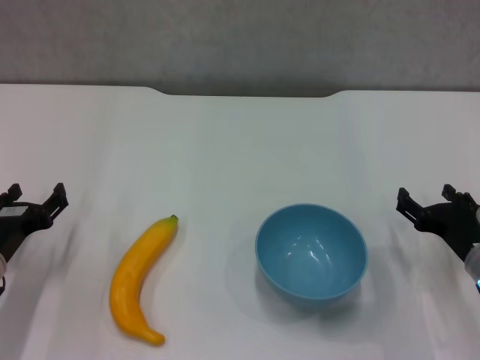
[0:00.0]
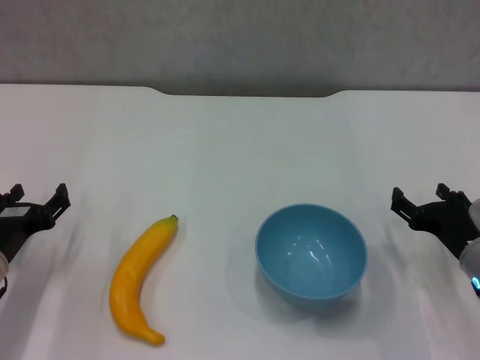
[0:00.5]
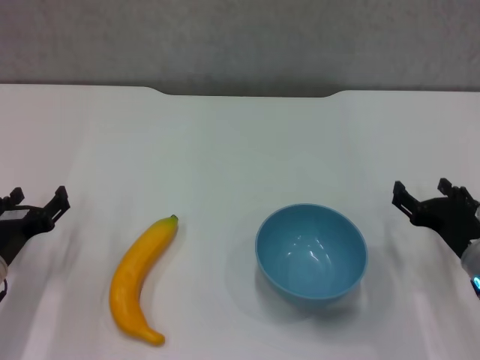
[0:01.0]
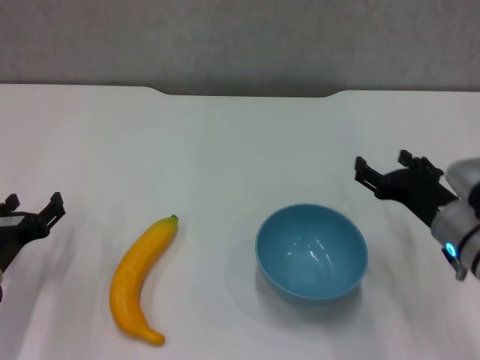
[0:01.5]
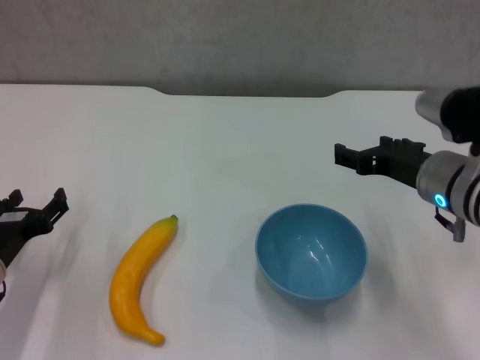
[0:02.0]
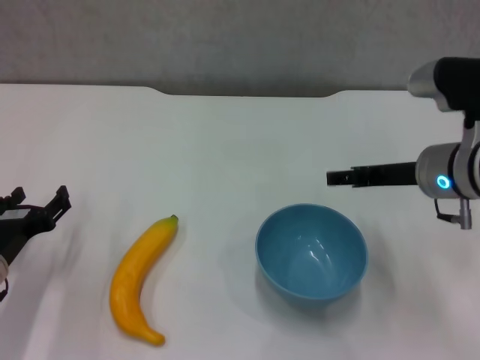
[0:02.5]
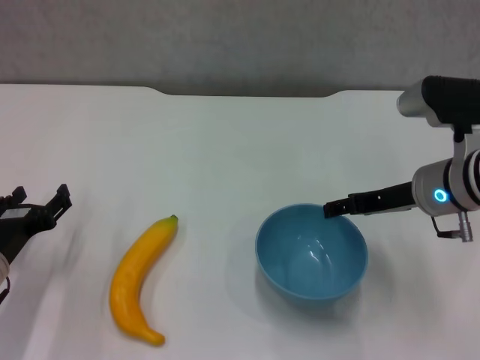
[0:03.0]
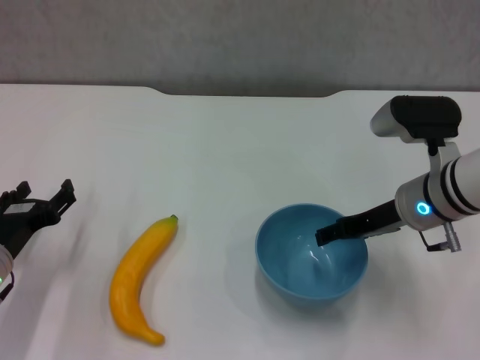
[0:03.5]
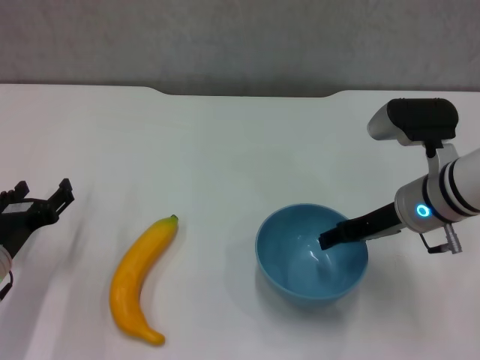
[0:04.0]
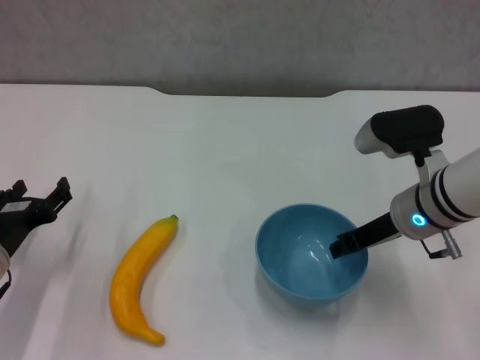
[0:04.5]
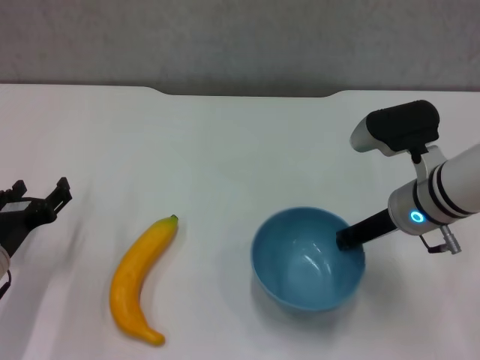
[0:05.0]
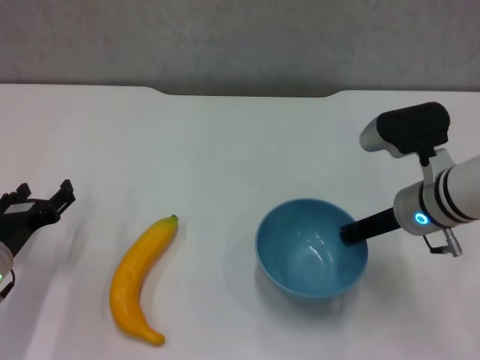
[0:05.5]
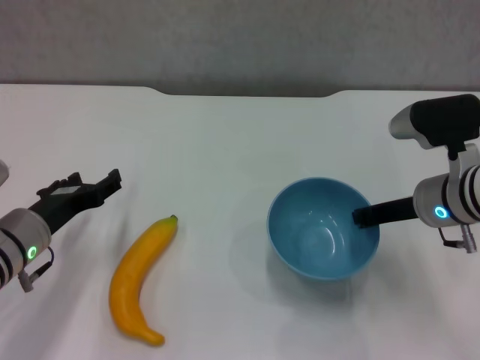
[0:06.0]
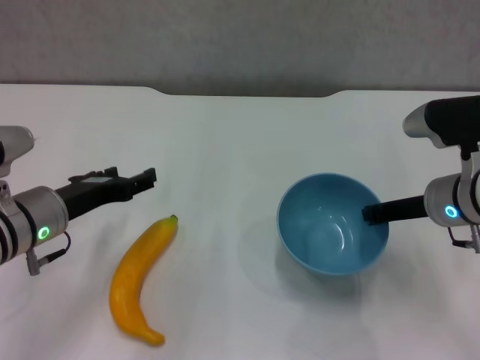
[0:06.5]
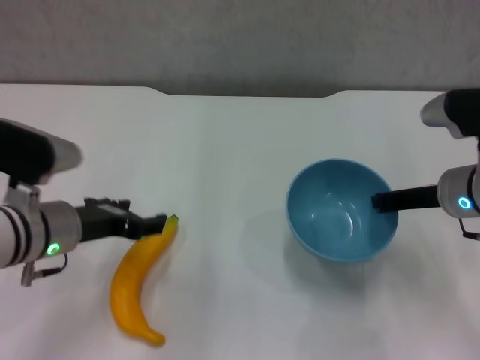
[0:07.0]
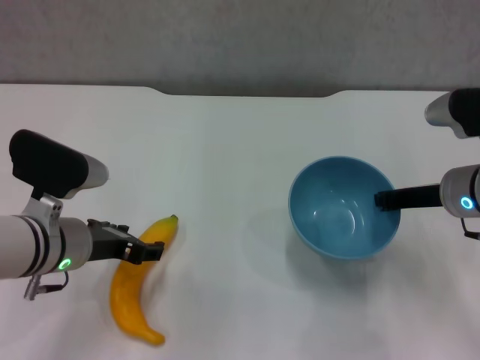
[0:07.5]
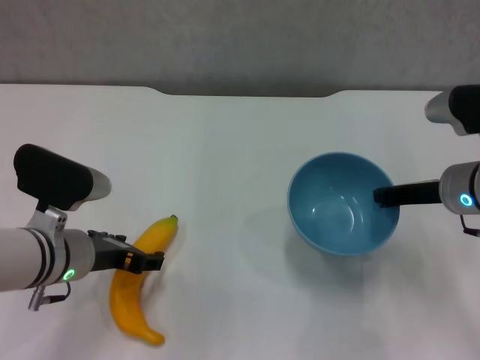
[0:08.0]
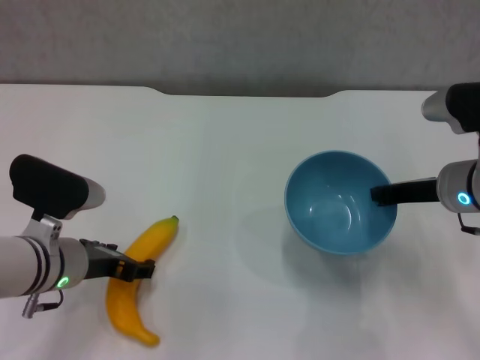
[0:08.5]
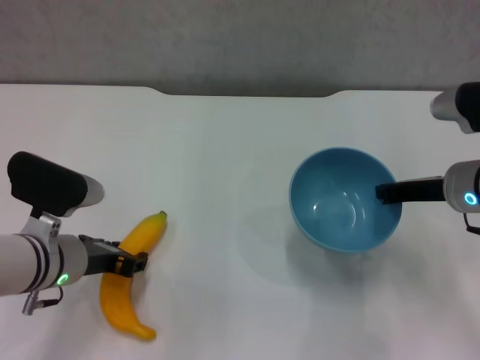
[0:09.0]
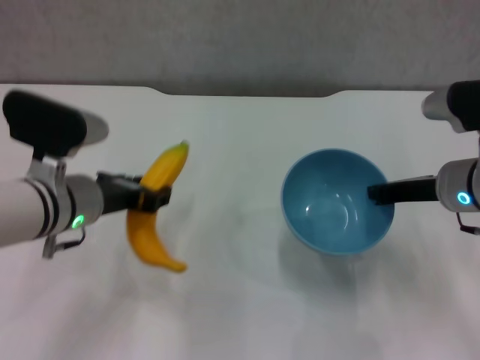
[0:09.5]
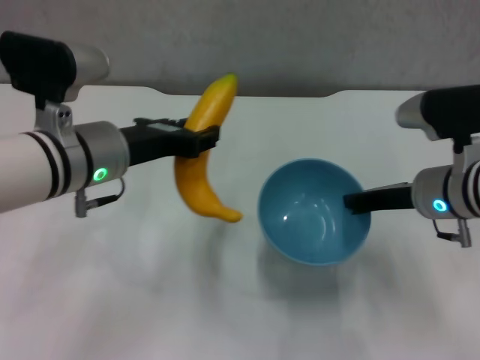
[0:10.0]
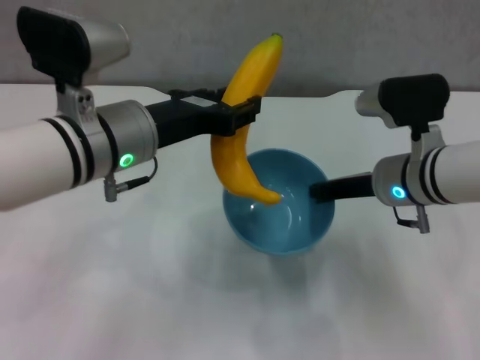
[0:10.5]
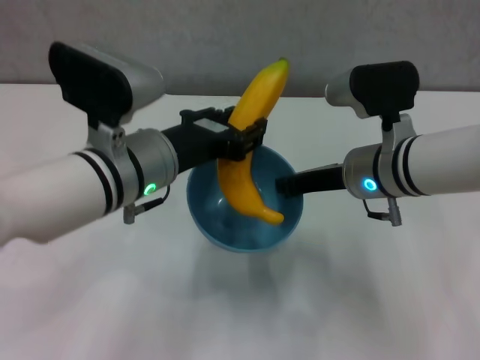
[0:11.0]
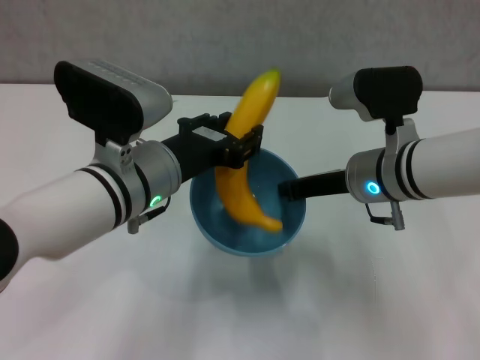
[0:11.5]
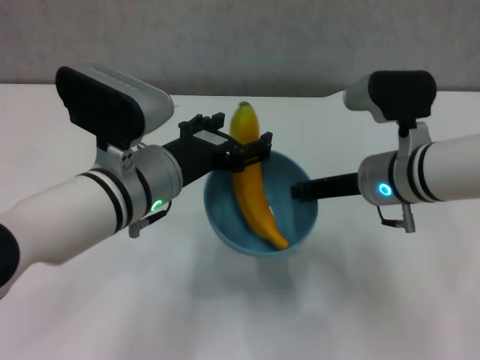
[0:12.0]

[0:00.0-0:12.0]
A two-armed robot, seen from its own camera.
Step, 0:00.0 to 0:04.5: Grasp the blue bowl with right gripper.
Step, 0:05.5 to 0:06.5: Lift the blue bowl with right gripper.
Step, 0:07.0 to 0:09.0: Grasp the banana with left gripper.
Step, 0:09.5 to 0:12.0: Place the banana in the blue bowl with left gripper.
0:00.0 to 0:02.0: The right gripper heads upward and to the left, covering some 15 cm.
0:04.0 to 0:06.0: The right gripper closes.
0:06.0 to 0:08.0: The left gripper moves roughly 5 cm.
0:08.0 to 0:10.0: The left gripper shifts roughly 10 cm upward, and closes up.
0:10.0 to 0:12.0: The right gripper shifts by approximately 5 cm, while the left gripper ends up about 5 cm from where it was, and opens its fingers.

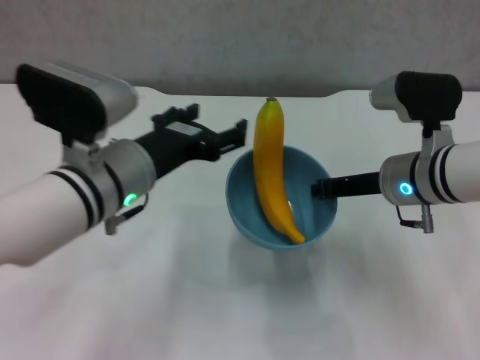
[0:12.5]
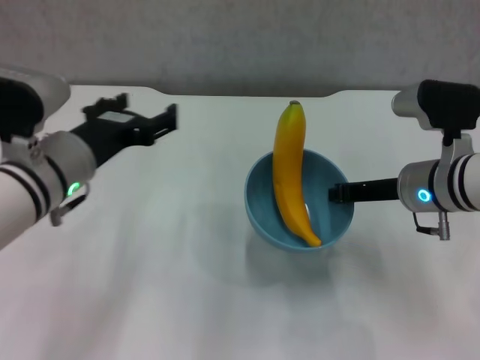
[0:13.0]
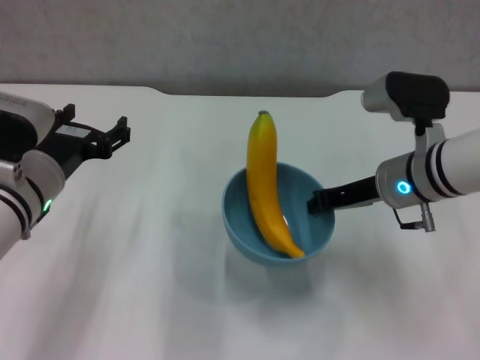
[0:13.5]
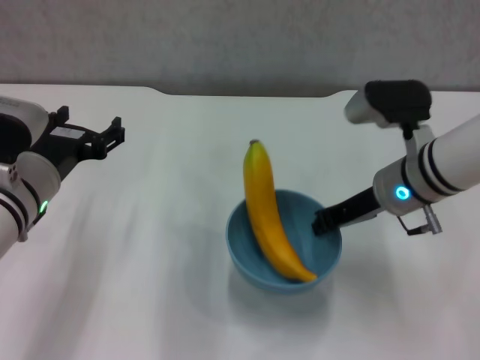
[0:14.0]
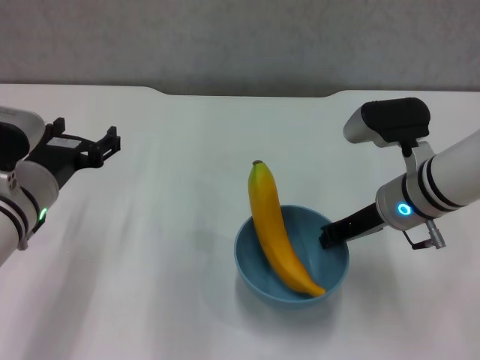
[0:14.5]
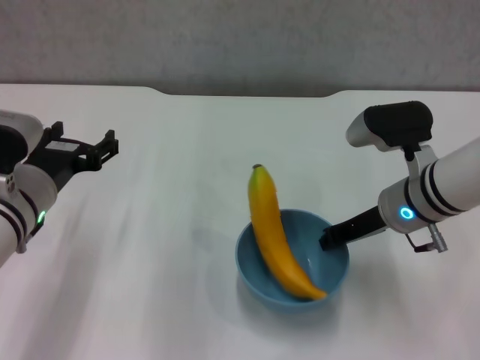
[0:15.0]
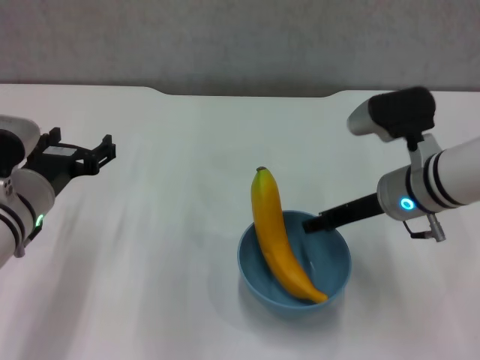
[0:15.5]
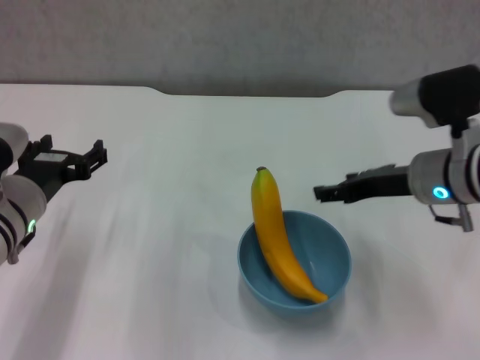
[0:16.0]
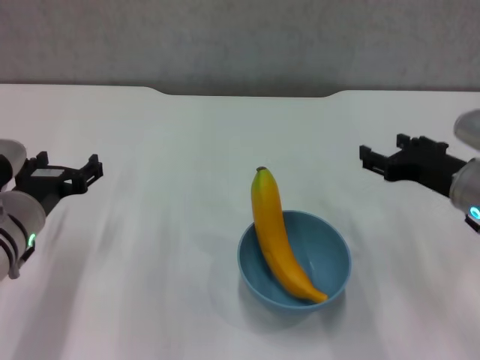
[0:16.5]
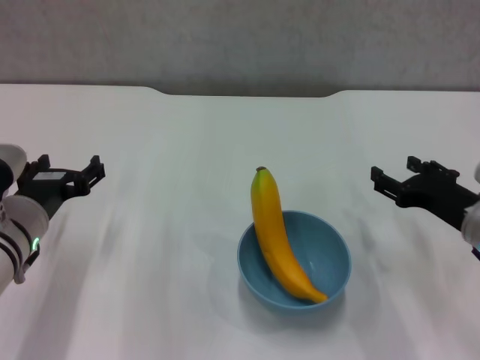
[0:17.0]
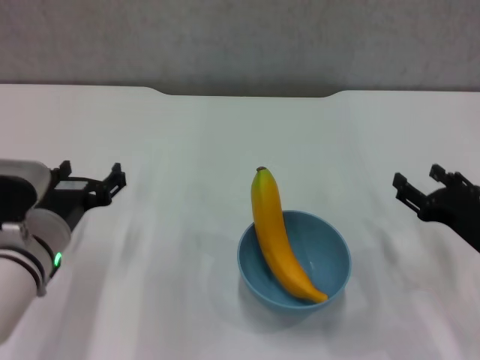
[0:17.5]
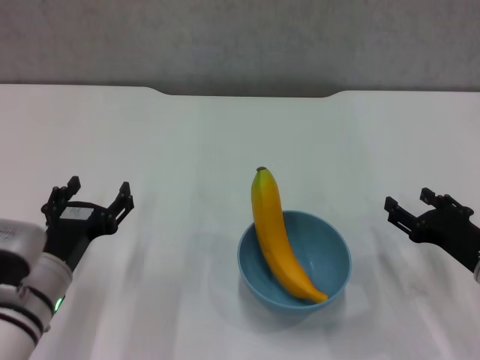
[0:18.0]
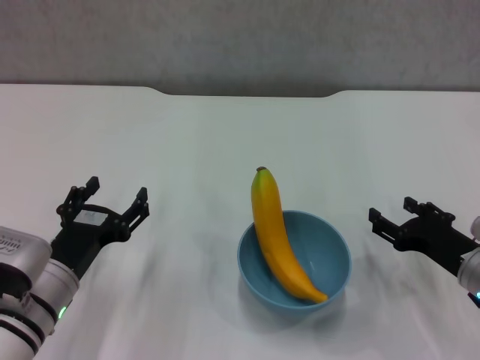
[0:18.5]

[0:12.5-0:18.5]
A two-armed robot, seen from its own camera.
Step, 0:12.5 to 0:15.5: Place the bowl on the table with right gripper.
0:12.5 to 0:14.5: The left gripper heads to the left, covering roughly 10 cm.
0:14.5 to 0:16.5: The right gripper moves to the right, some 5 cm, and opens.
0:16.5 to 0:18.5: The left gripper is displaced backward and downward by about 10 cm, while the right gripper shifts about 10 cm downward and backward.
